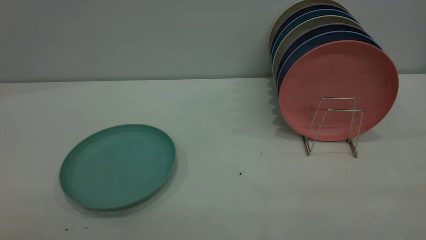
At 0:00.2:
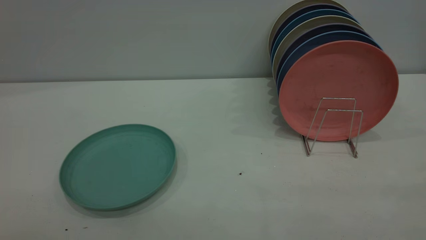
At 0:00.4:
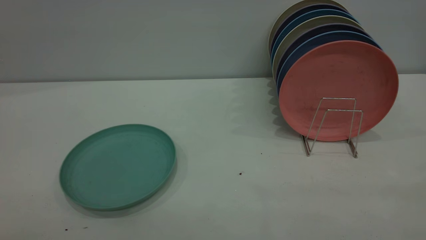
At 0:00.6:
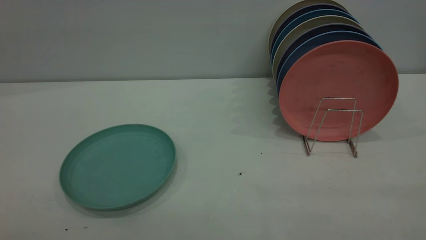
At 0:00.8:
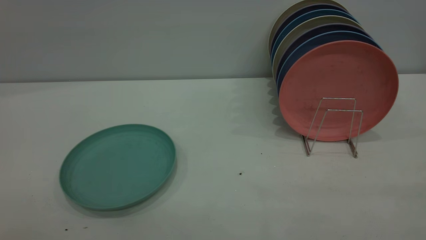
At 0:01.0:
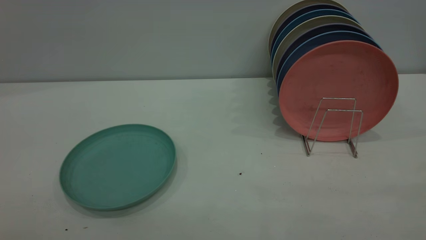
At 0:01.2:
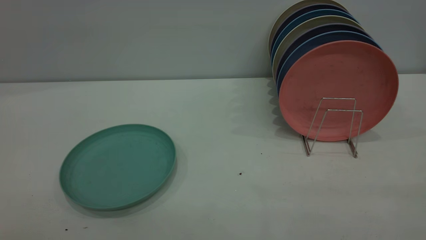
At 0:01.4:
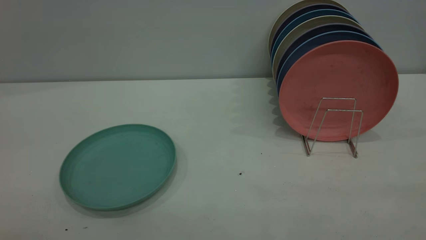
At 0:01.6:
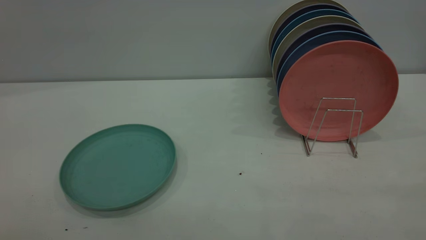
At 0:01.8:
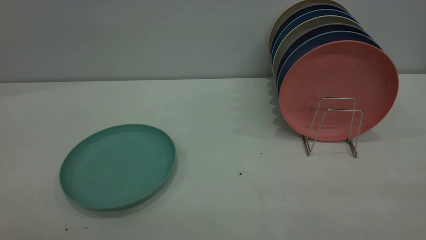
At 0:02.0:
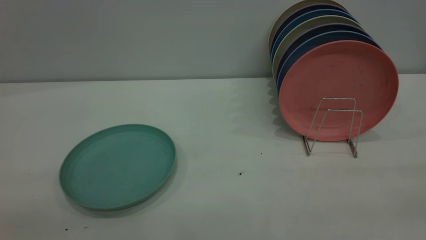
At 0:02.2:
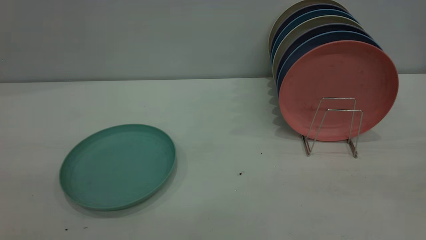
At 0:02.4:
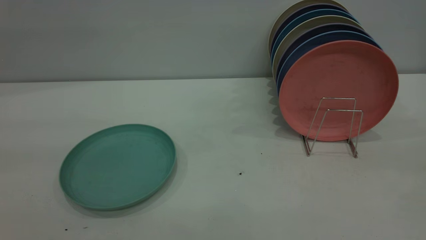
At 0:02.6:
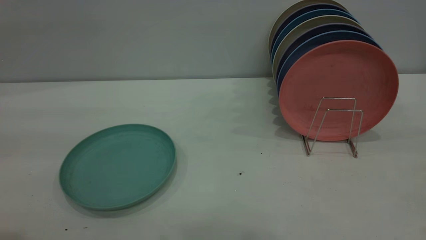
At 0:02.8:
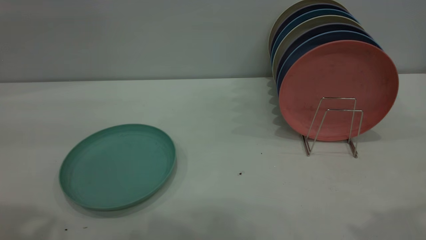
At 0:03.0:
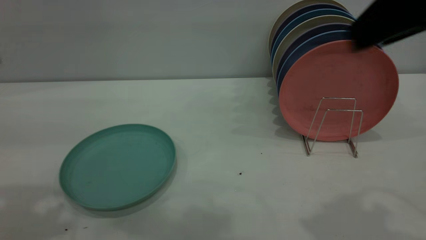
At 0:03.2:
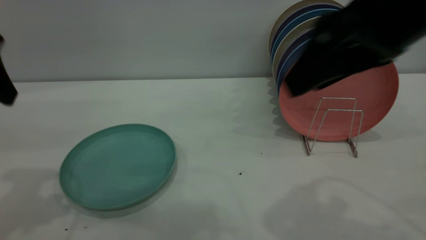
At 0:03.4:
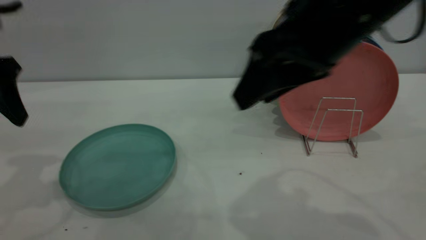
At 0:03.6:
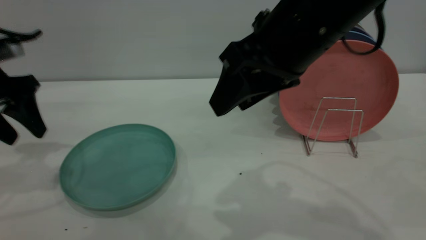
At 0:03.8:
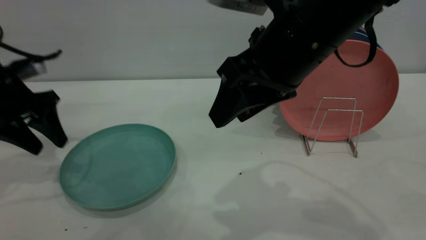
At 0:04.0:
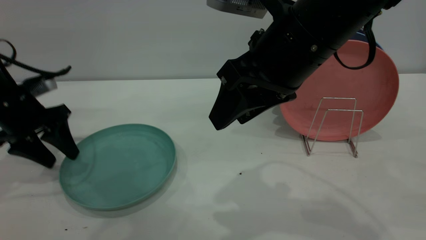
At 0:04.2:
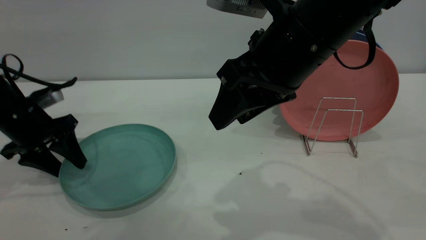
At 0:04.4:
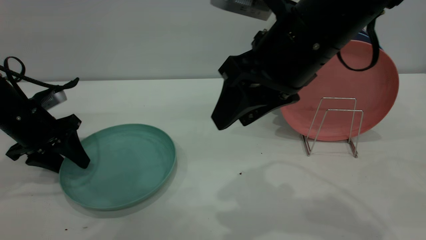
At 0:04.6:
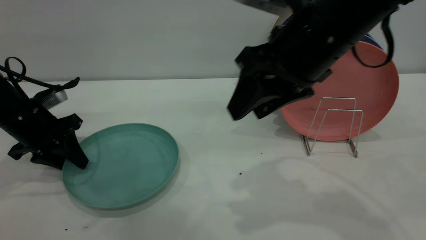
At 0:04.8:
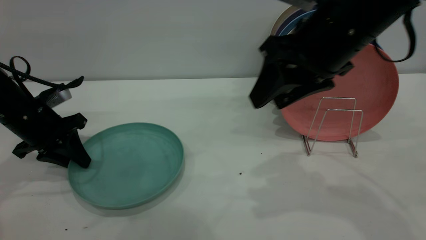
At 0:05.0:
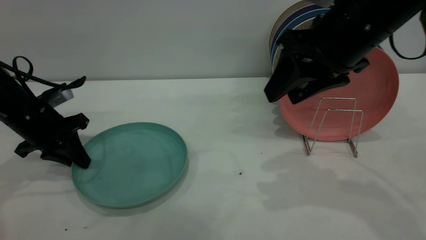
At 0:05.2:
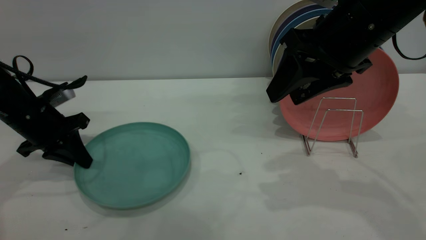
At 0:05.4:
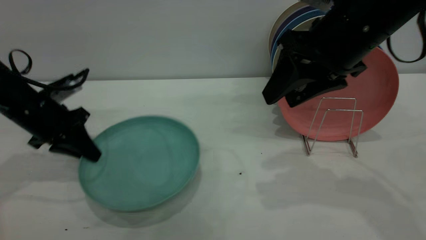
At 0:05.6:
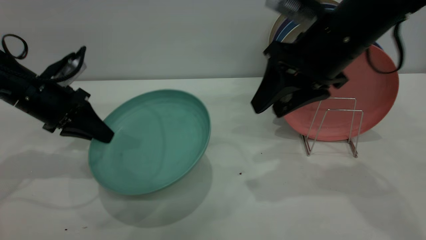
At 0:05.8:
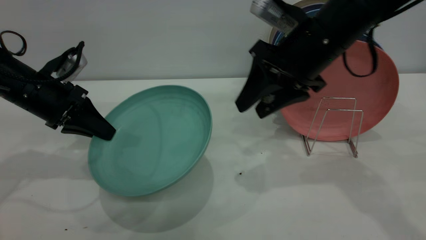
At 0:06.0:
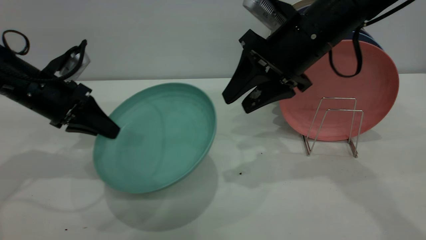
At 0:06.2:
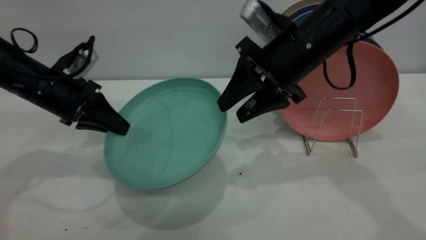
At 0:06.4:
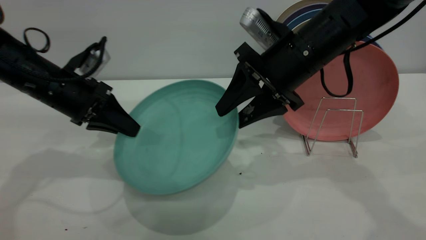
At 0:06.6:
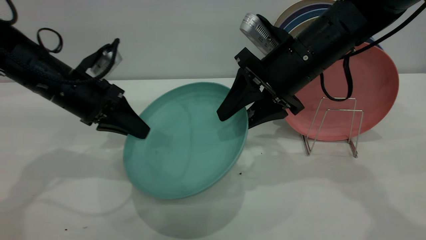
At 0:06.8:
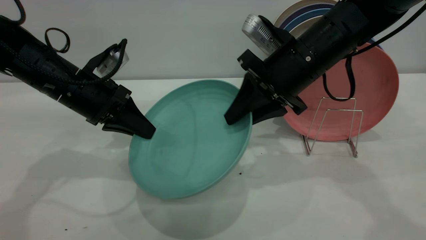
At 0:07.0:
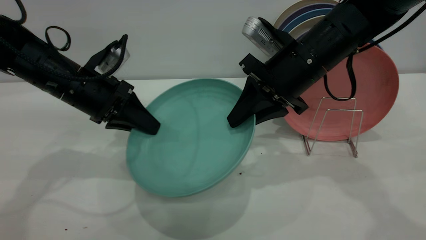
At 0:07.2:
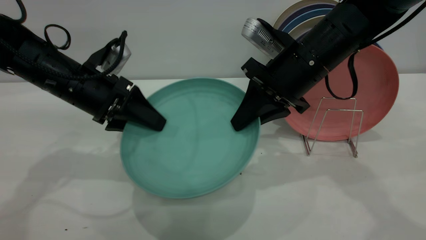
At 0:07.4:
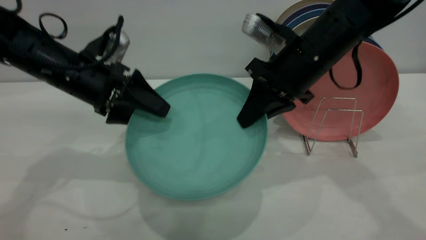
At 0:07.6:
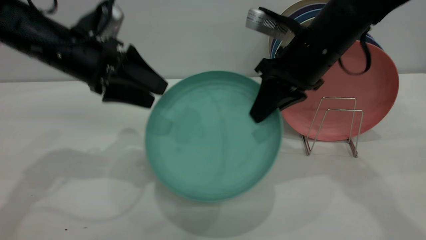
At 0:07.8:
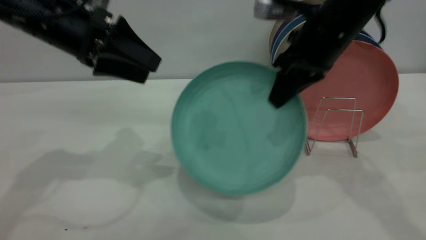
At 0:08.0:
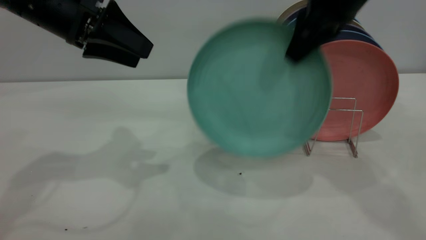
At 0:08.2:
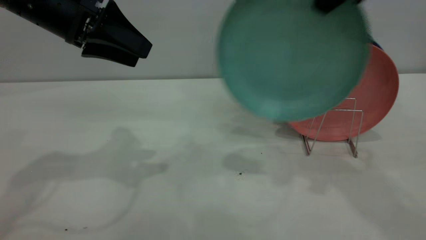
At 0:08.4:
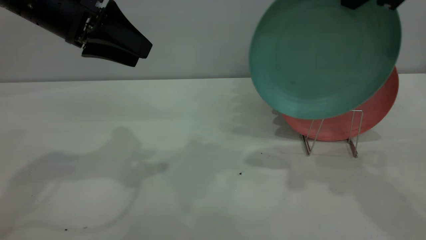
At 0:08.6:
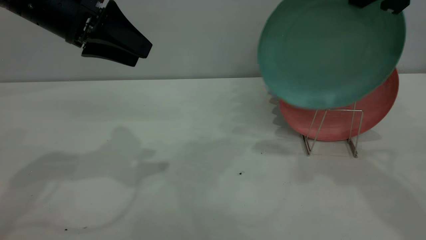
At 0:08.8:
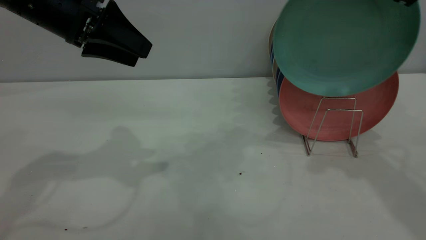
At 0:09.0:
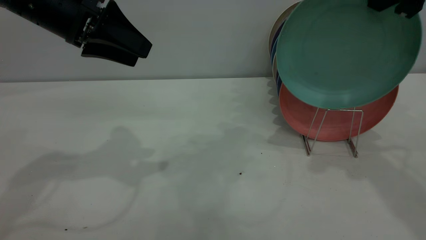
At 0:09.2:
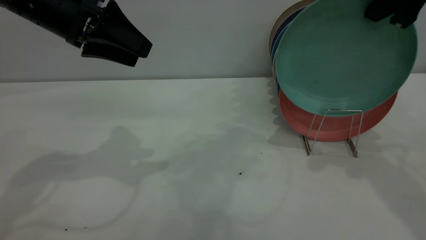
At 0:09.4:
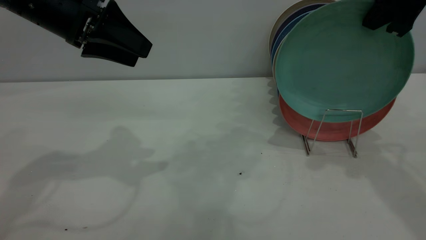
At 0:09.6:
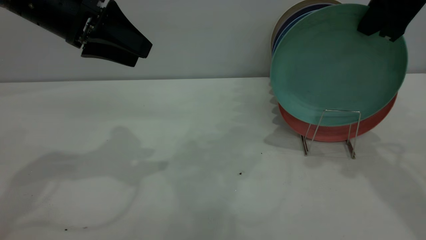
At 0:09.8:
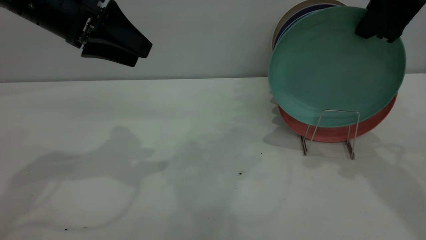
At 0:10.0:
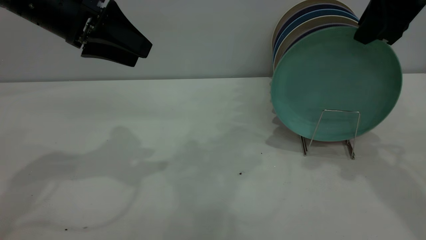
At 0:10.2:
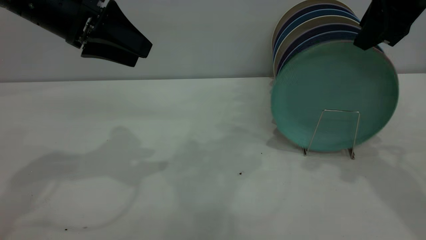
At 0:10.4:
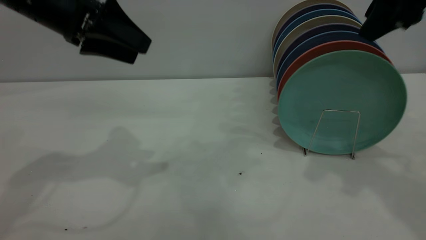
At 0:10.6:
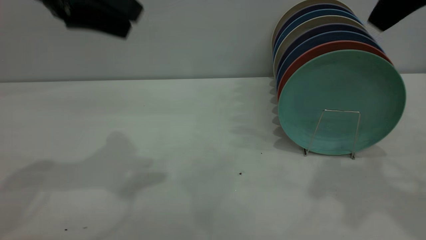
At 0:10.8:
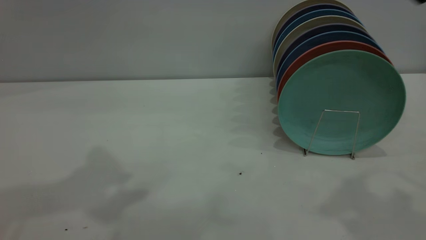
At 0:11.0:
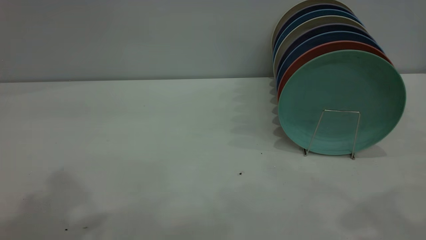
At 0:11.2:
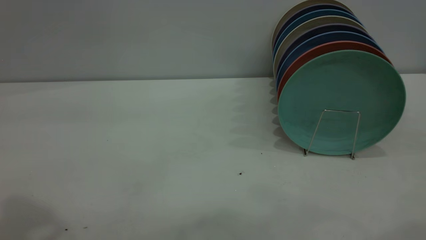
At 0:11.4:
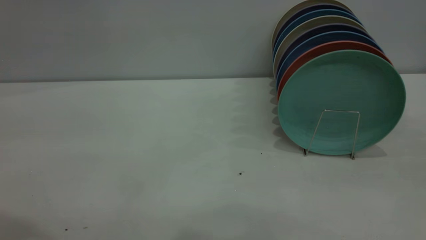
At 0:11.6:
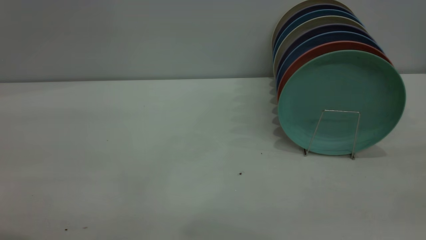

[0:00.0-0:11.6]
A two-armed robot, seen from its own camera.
Task of the whole recording: the left gripper grasp the green plate, the left gripper pass the green plate to the right gripper, and the right gripper place the green plate on the plate rack.
Step, 0:00.0 to 0:04.8: Pick up the plate with the left gripper.
Step, 0:05.0 to 0:07.8: Pass the plate from the left gripper to the right gripper.
Step, 0:08.2 to 0:10.4: Place the plate on the shelf.
0:00.0 to 0:01.4: Neither gripper changes place.
0:02.8 to 0:04.4: The left gripper moves downward and forward, some 35 cm; the right gripper heads to the left, downward and forward, covering approximately 20 cm.
0:04.4 to 0:05.8: The right gripper heads forward, covering some 10 cm; the left gripper changes place by about 5 cm, and closes.
0:05.8 to 0:07.2: The left gripper travels to the right by about 5 cm, and opens its fingers. The right gripper closes.
0:07.2 to 0:08.8: The left gripper travels upward by about 10 cm. Meanwhile the right gripper goes approximately 20 cm upward and to the right.
0:08.8 to 0:10.2: The right gripper opens up.
0:10.2 to 0:11.6: The left gripper moves backward and upward, roughly 25 cm. Meanwhile the right gripper moves backward, about 30 cm.

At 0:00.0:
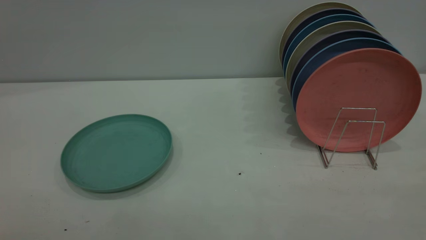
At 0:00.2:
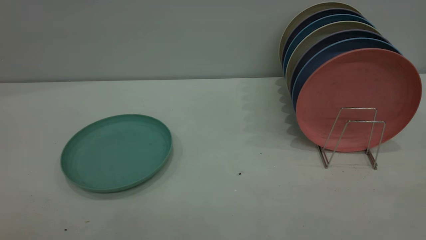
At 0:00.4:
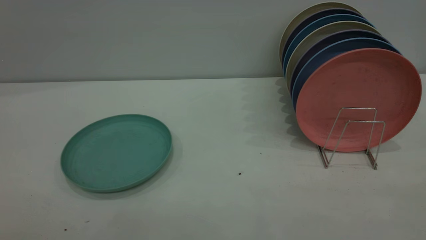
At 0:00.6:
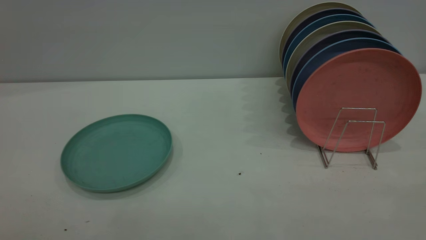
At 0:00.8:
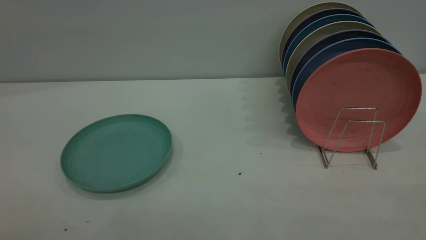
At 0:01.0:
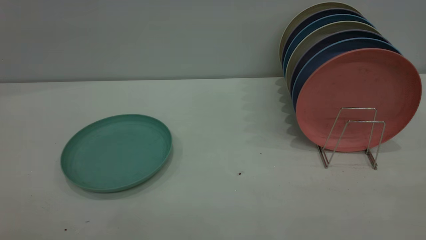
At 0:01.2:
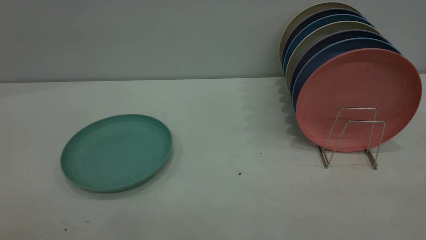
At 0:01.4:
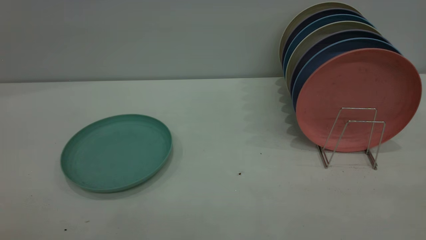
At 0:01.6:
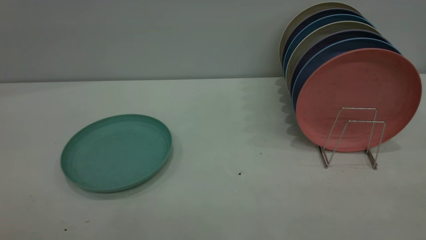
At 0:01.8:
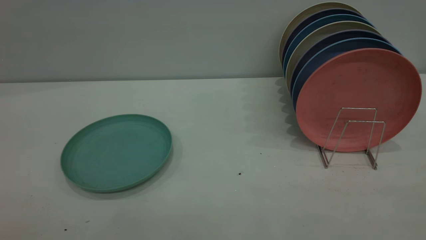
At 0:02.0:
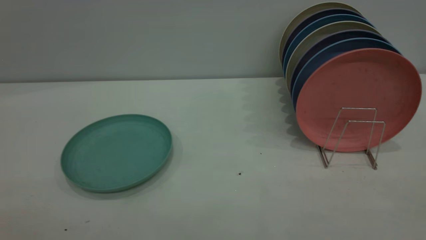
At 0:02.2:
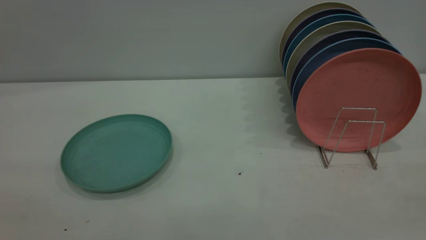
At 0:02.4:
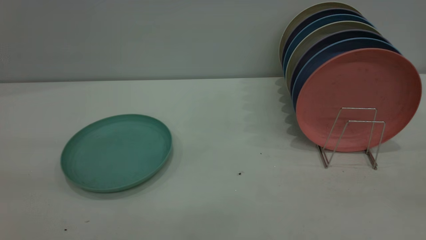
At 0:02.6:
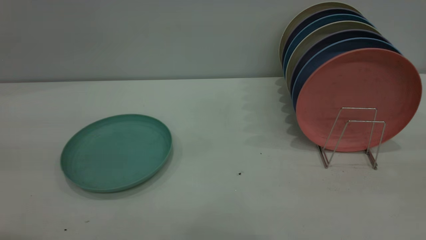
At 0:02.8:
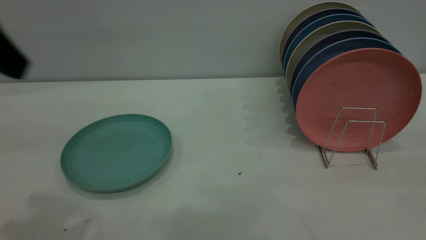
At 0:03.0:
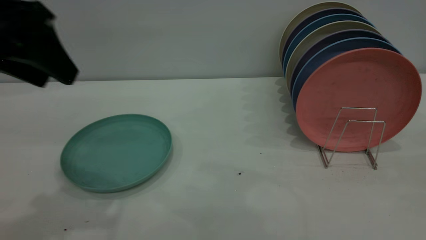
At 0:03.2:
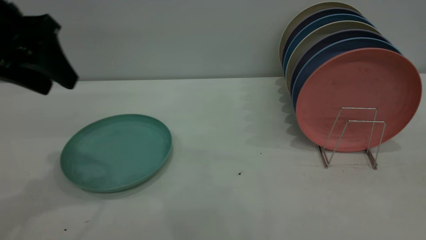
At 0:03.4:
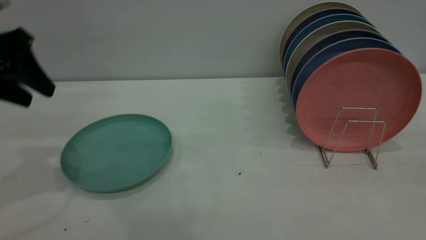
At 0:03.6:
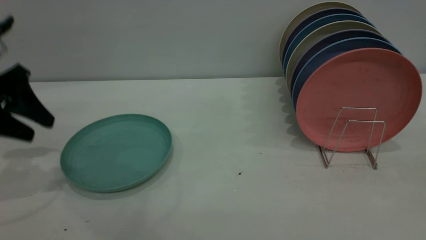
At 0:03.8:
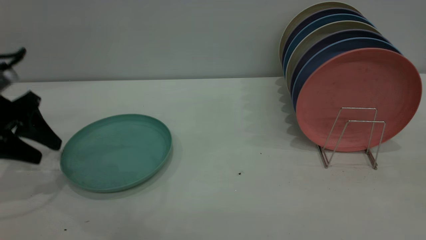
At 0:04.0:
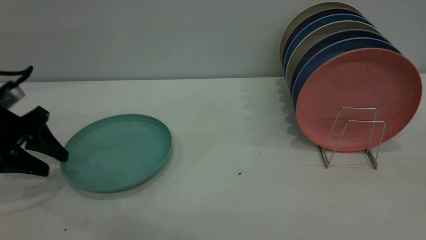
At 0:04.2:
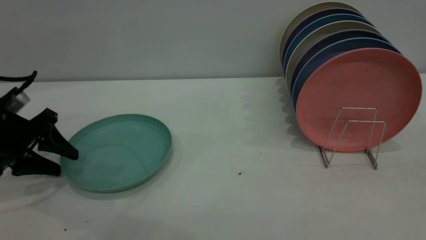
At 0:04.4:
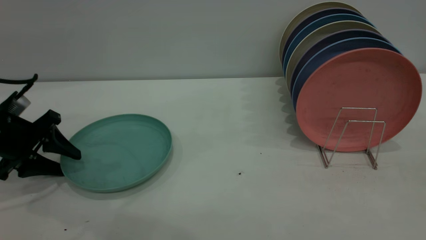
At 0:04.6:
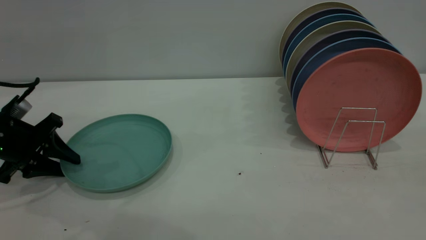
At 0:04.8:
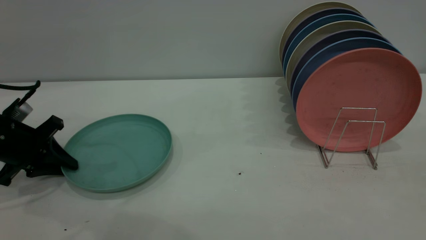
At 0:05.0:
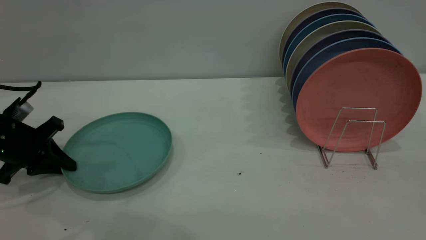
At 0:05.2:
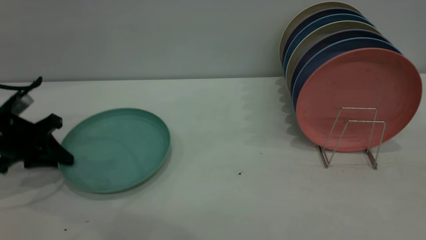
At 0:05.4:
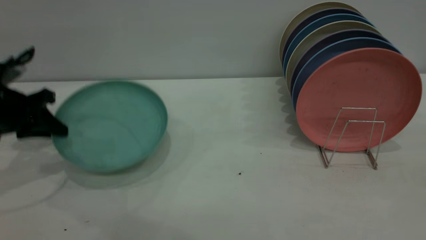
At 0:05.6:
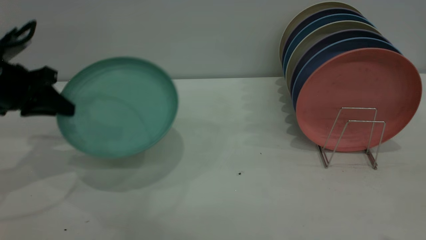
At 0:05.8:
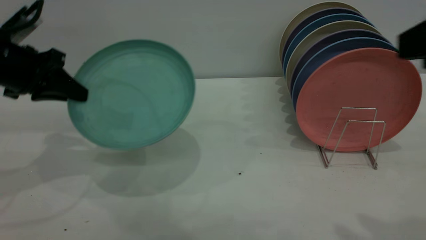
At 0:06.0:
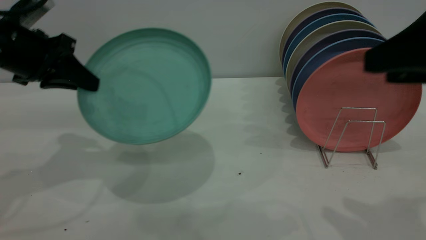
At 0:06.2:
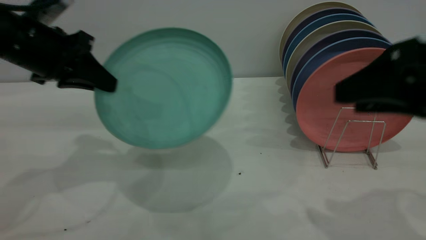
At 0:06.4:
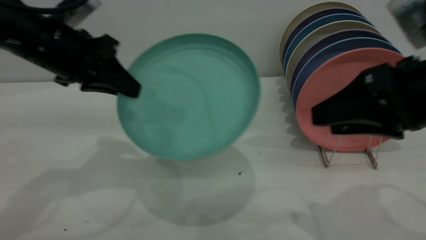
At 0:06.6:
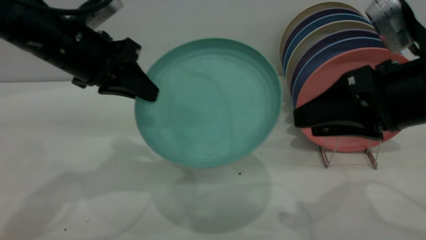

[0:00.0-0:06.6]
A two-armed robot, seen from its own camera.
Task of the whole recording: the left gripper grasp the green plate, the left gripper pass the green plate to the right gripper, and the right gripper place the green plate on the plate rack.
Step, 0:00.0 to 0:05.6: Pick up the plate with the left gripper.
0:00.0 to 0:01.6: Both grippers stay about where they are.
0:01.6 to 0:03.2: The left gripper is displaced forward by about 35 cm.
0:03.2 to 0:05.0: The left gripper goes some 20 cm downward, and closes.
0:05.0 to 0:06.6: The right gripper is displaced forward, downward and to the left by some 25 cm, while the left gripper is displaced to the right and upward by about 20 cm.
